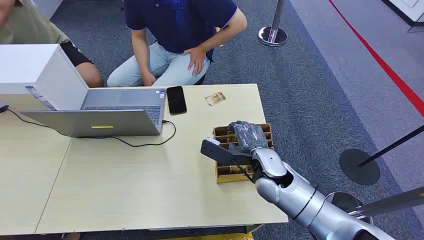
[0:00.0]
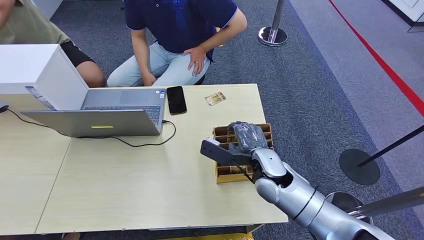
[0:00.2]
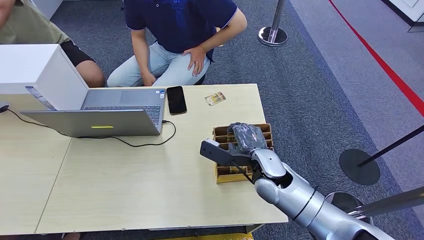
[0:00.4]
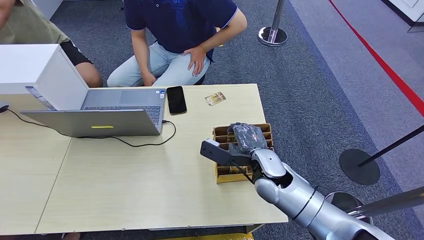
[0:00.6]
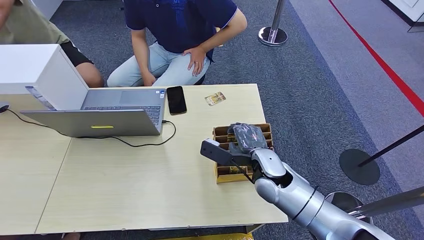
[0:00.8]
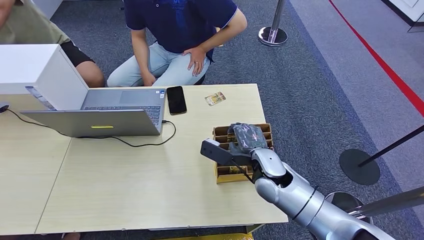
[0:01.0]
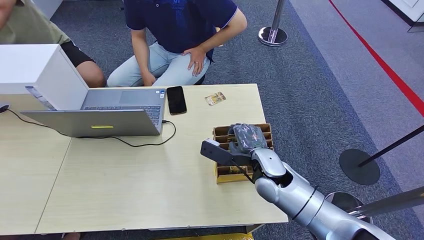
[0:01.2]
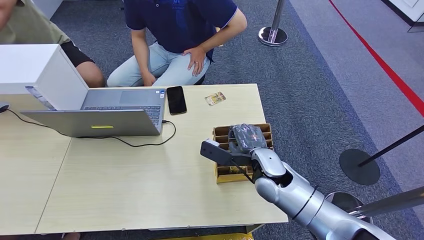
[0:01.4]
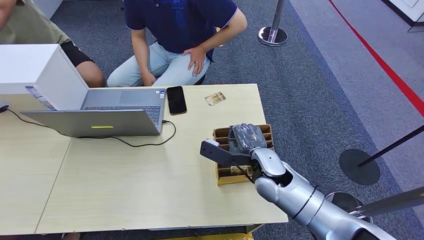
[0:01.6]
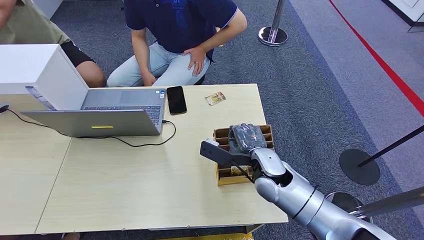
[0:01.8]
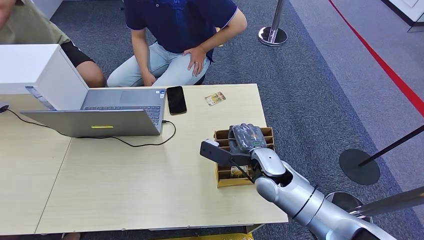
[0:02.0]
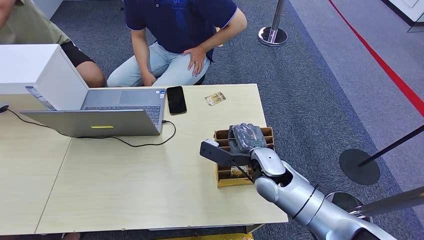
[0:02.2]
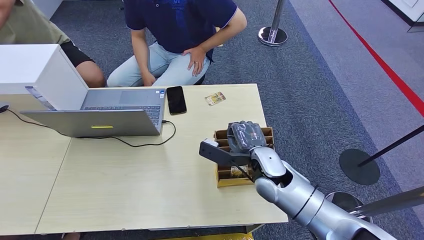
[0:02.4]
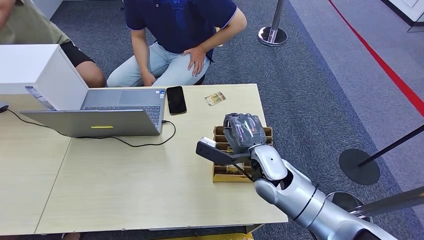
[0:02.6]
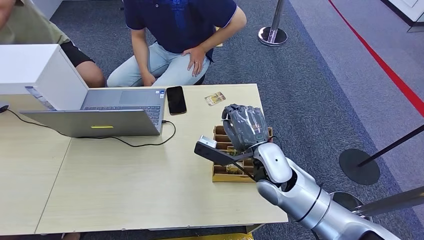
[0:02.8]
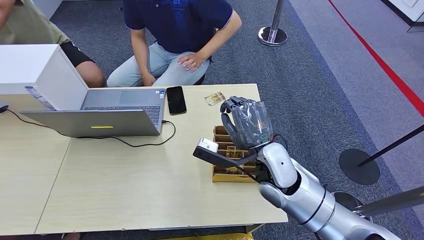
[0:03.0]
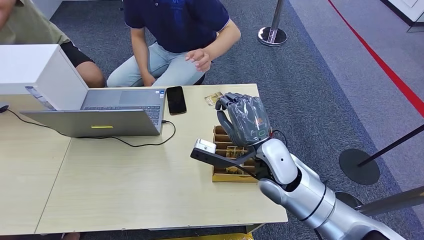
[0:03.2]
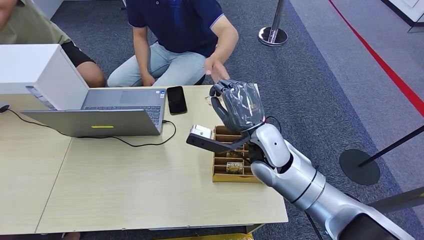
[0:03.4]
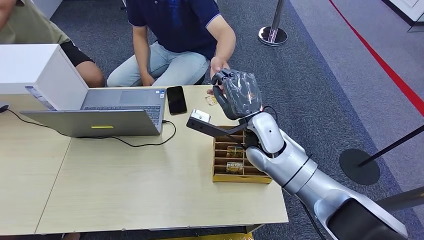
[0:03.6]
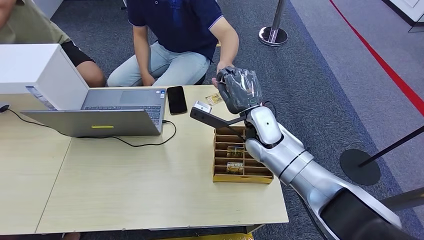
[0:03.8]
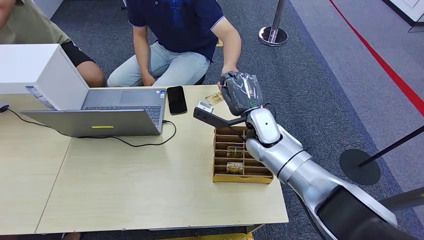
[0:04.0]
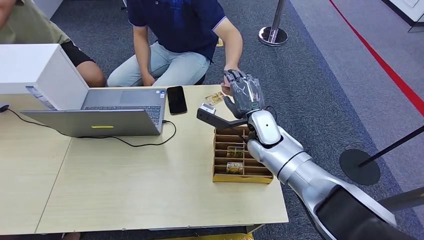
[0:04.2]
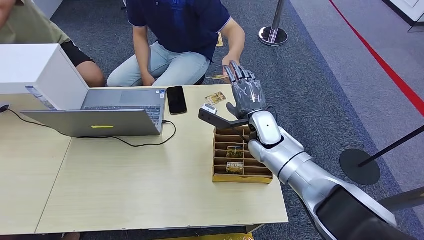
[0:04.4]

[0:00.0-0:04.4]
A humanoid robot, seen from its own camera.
Step, 0:00.0 to 0:02.8: Pick up the key card from the card box.
Step, 0:03.0 to 0:04.4: Hand the key card to the target.
0:01.4 to 0:03.0: The right hand moves upward, about 5 cm.
0:03.0 to 0:04.4: The right hand heads forward, covering some 10 cm.
